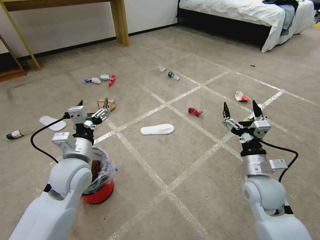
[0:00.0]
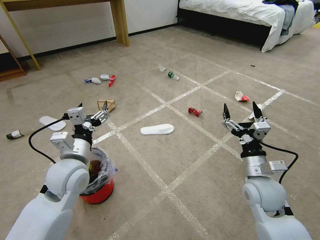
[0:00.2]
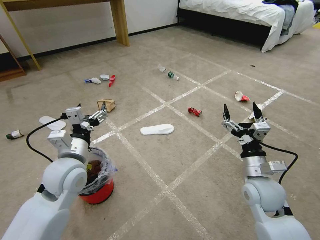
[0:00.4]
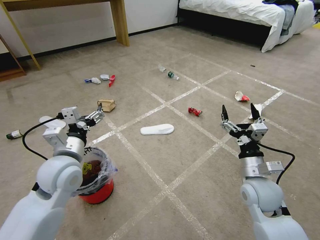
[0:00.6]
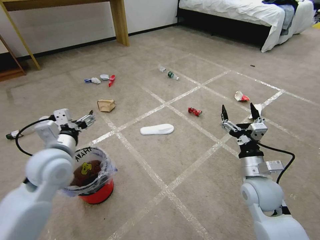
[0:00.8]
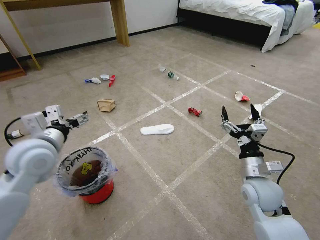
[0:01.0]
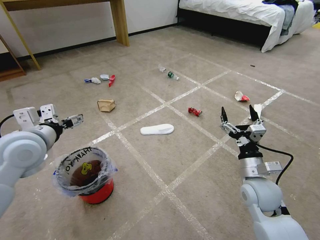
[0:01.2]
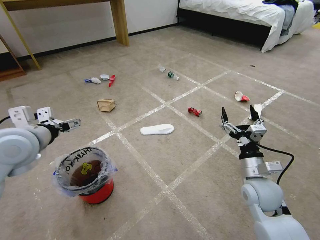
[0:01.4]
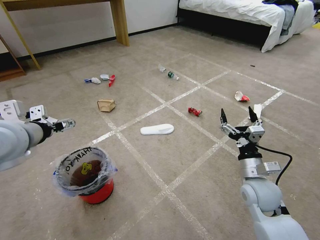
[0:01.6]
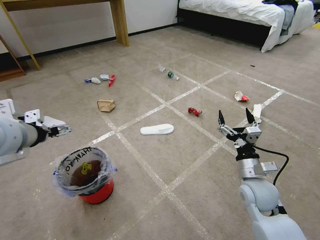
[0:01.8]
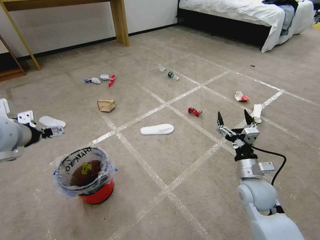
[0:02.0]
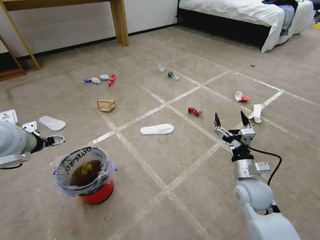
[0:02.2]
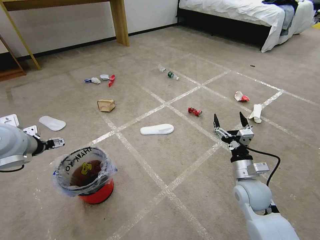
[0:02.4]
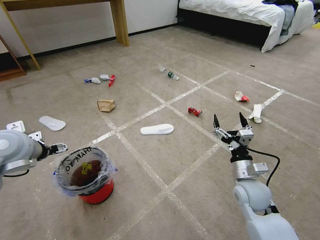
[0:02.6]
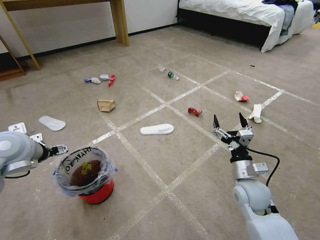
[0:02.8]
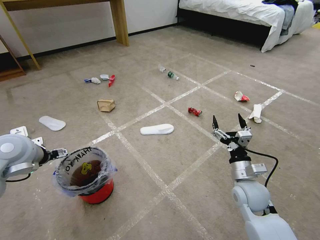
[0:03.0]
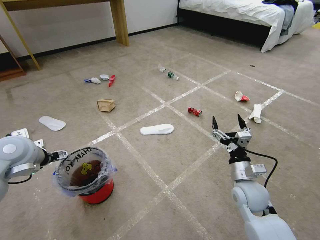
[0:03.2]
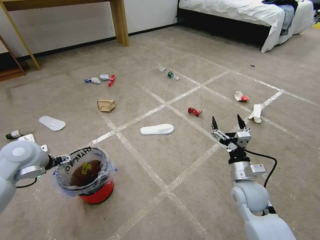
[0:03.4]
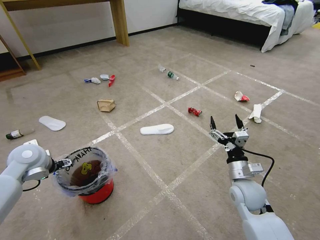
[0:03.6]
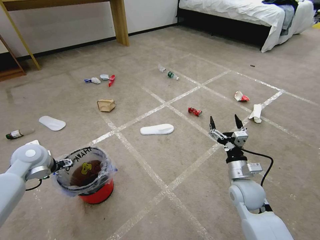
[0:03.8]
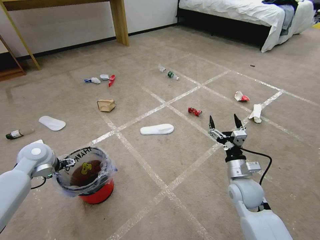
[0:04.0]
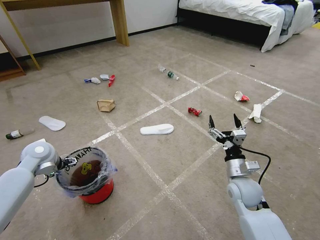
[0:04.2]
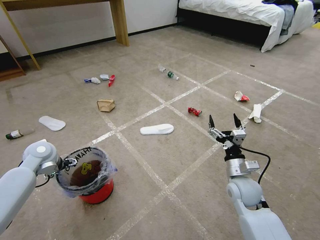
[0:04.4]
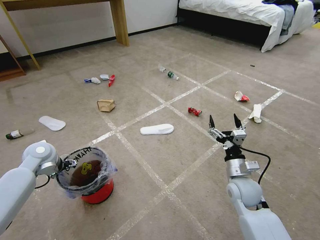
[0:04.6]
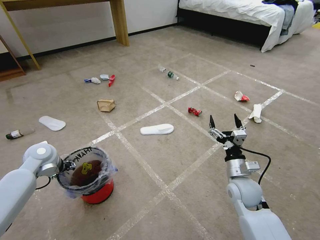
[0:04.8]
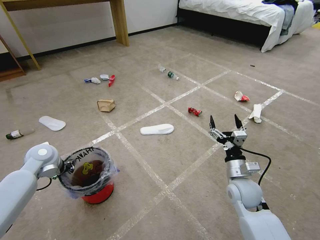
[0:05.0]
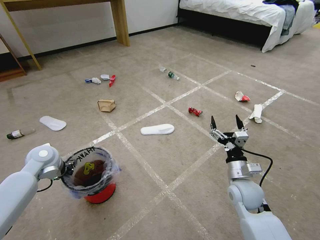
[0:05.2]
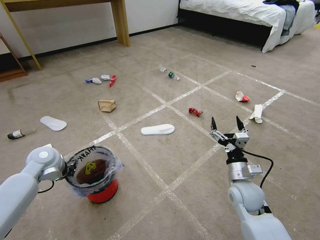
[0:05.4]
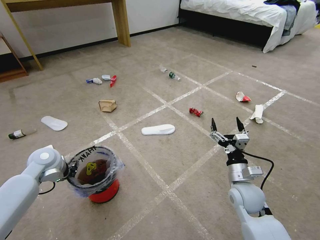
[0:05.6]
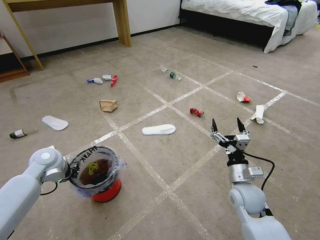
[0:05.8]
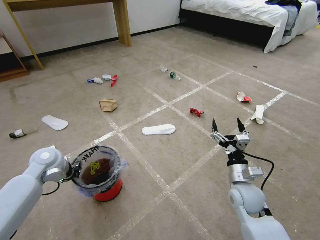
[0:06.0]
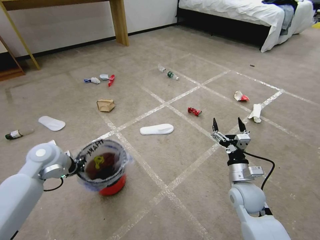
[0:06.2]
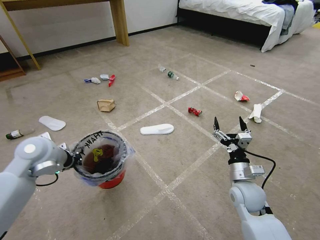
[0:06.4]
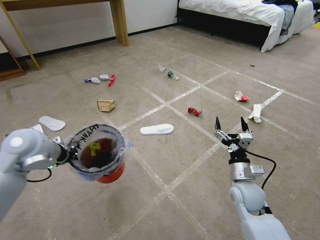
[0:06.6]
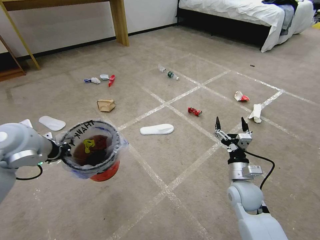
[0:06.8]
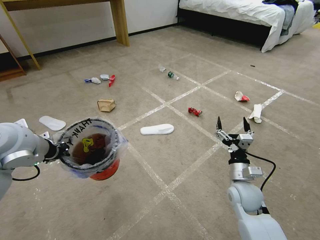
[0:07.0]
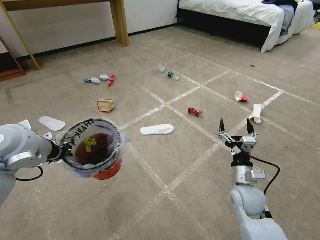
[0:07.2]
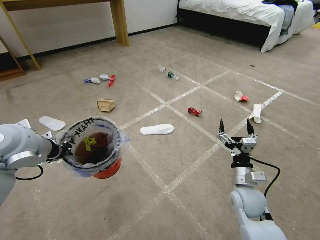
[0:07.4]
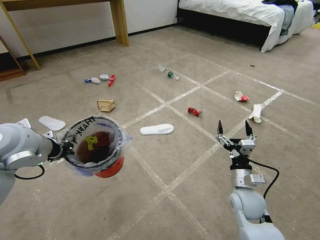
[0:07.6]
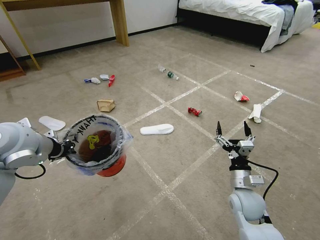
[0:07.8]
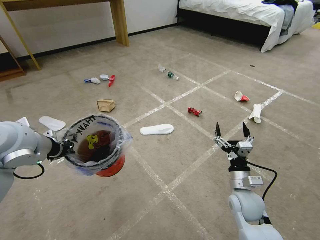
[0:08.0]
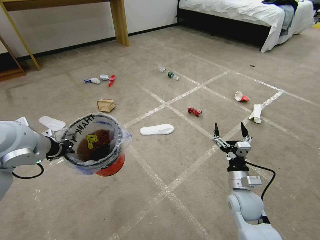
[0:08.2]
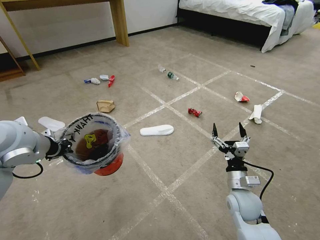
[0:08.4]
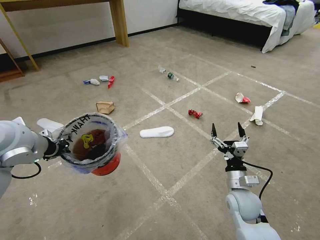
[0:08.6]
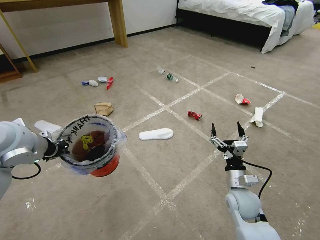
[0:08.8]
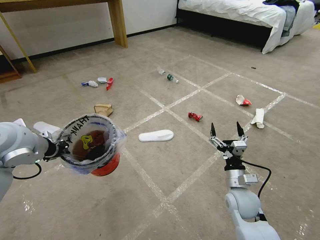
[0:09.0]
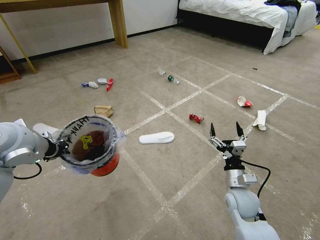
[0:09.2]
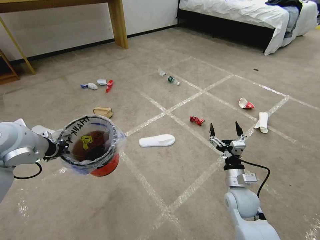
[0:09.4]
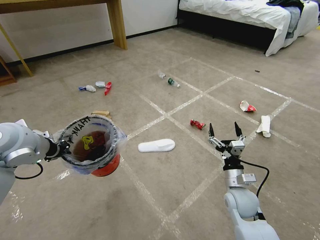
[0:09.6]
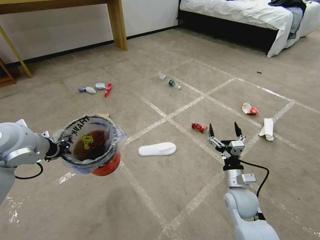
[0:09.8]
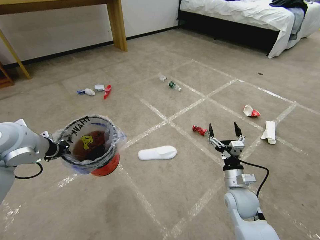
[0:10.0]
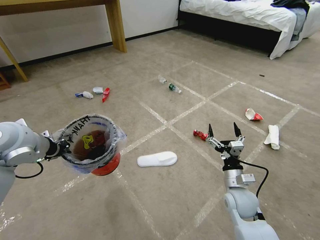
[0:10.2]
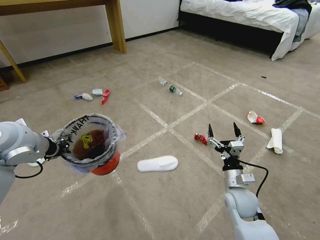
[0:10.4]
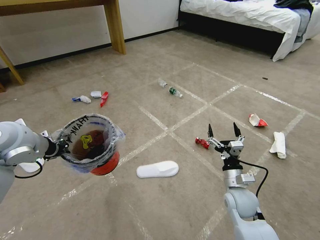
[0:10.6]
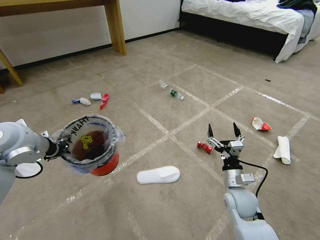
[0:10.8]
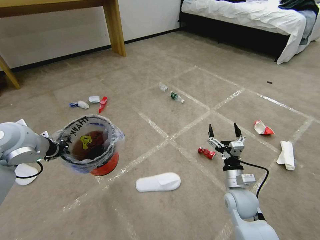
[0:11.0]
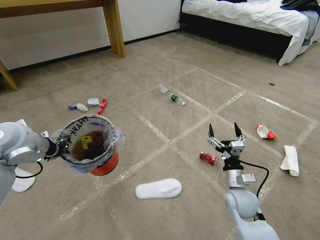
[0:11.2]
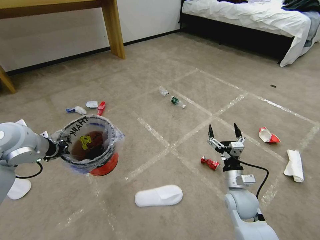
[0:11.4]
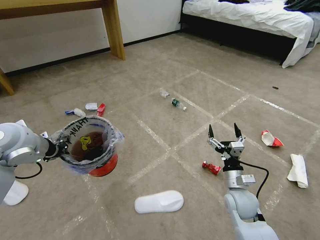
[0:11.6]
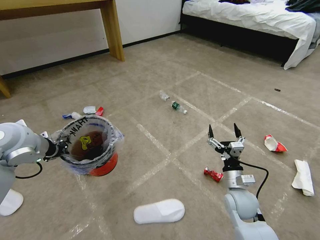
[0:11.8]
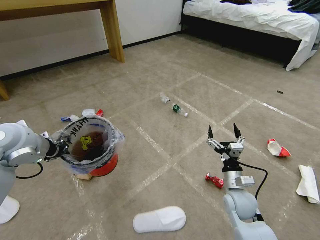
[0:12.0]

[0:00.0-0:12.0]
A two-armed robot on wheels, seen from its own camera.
Task of the whole recording: Pick up the trash bin and place the garbage on the floor into it.
0:01.6 to 0:03.0: The left gripper travels downward by roughly 10 cm.
0:03.0 to 0:04.4: The left gripper moves downward and forward, approximately 10 cm.
0:04.4 to 0:06.0: The left gripper closes.
0:06.0 to 0:07.6: The left gripper heads upward, covering approximately 15 cm.
0:07.6 to 0:09.0: The grippers make only small movements.
0:09.0 to 0:10.4: Neither gripper changes place.

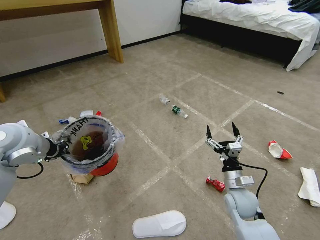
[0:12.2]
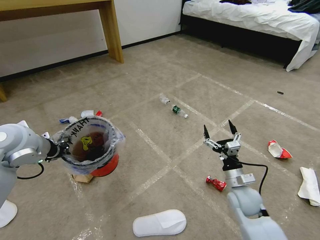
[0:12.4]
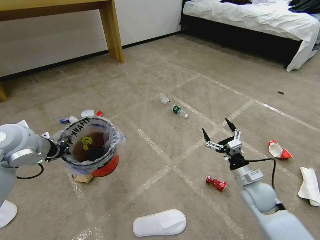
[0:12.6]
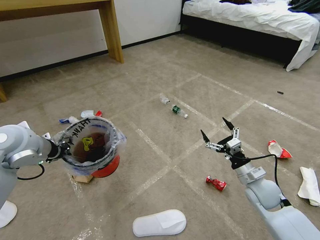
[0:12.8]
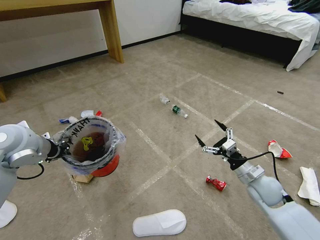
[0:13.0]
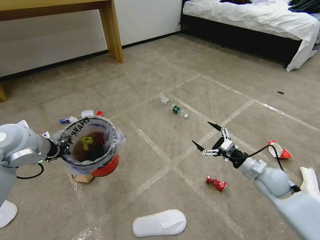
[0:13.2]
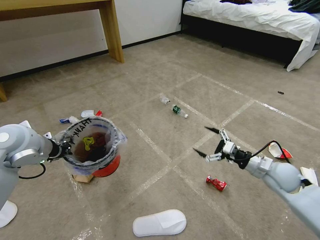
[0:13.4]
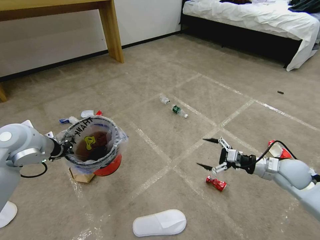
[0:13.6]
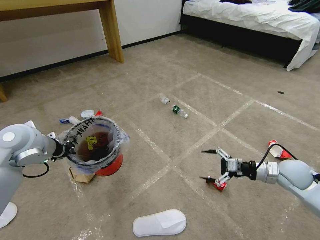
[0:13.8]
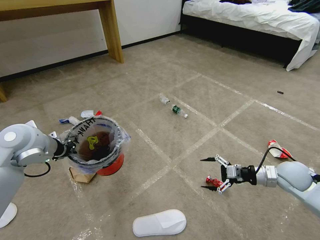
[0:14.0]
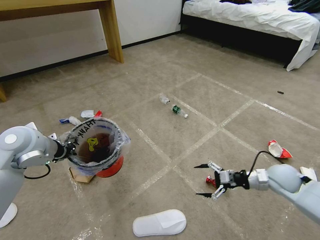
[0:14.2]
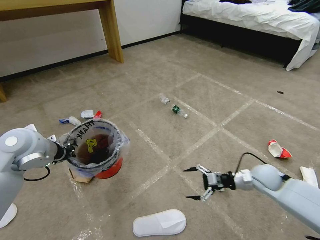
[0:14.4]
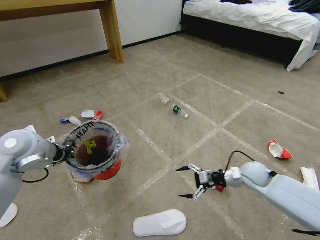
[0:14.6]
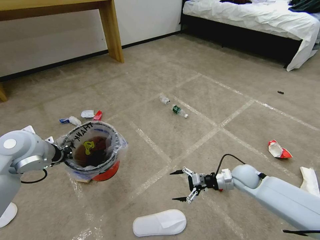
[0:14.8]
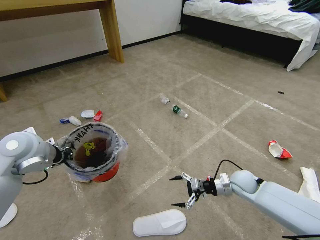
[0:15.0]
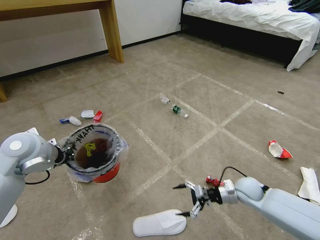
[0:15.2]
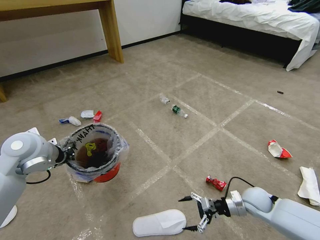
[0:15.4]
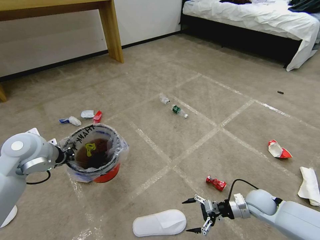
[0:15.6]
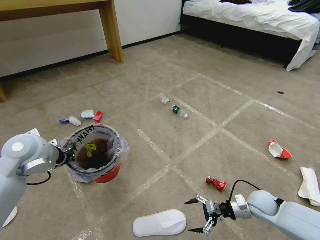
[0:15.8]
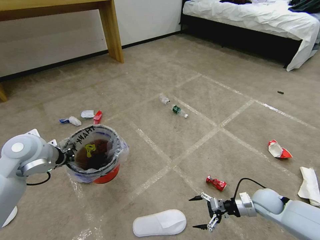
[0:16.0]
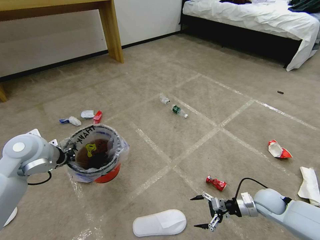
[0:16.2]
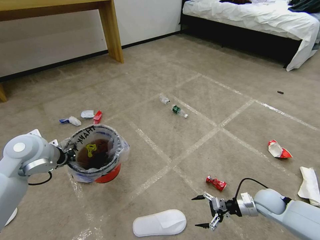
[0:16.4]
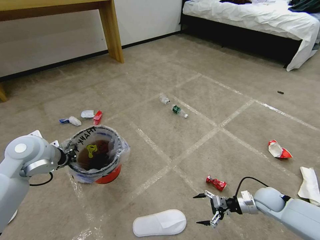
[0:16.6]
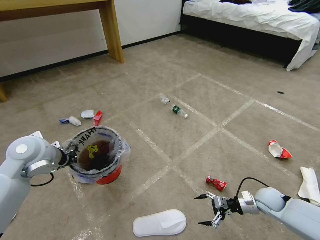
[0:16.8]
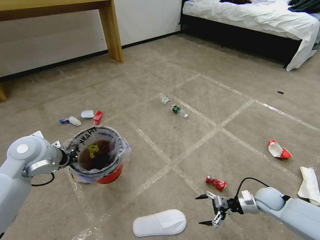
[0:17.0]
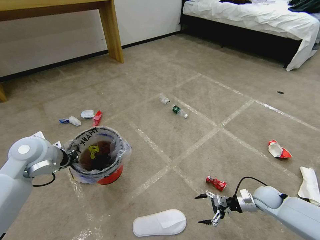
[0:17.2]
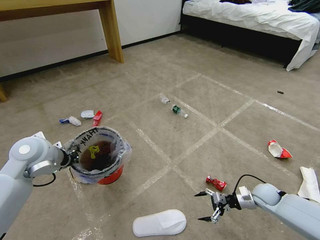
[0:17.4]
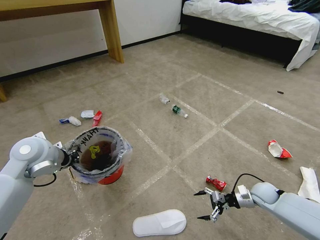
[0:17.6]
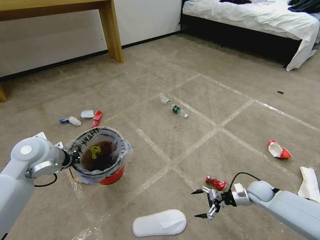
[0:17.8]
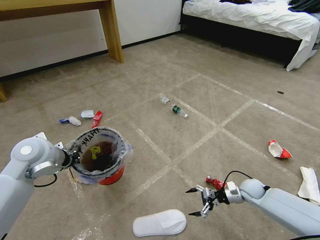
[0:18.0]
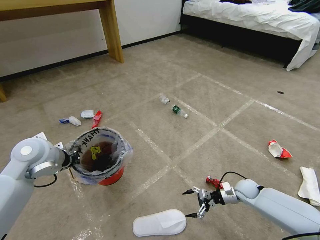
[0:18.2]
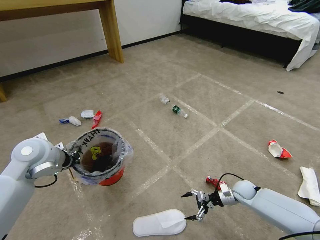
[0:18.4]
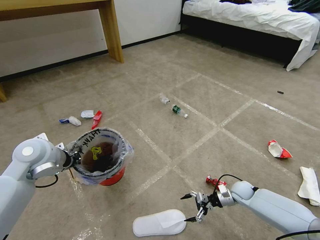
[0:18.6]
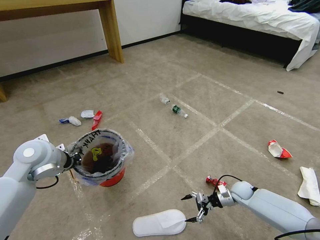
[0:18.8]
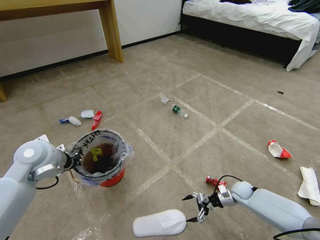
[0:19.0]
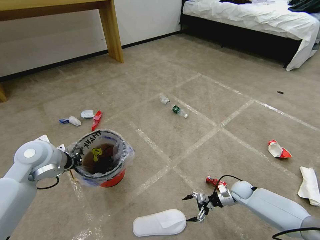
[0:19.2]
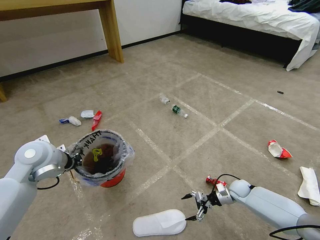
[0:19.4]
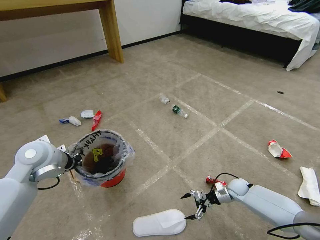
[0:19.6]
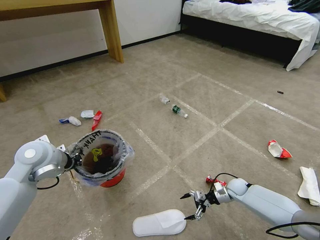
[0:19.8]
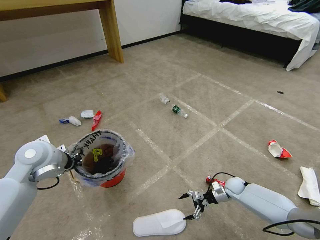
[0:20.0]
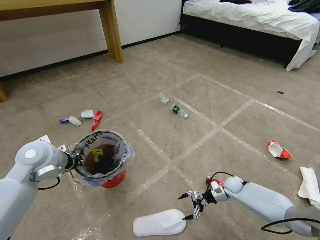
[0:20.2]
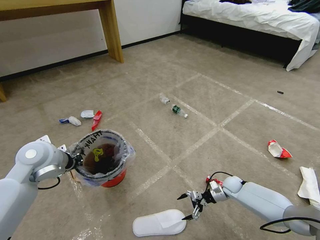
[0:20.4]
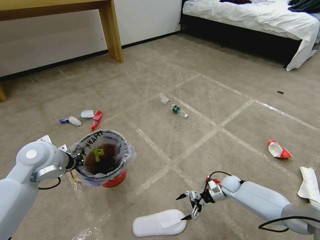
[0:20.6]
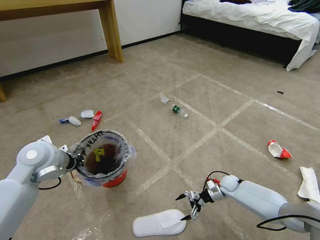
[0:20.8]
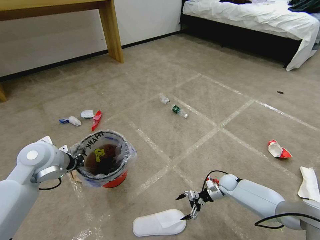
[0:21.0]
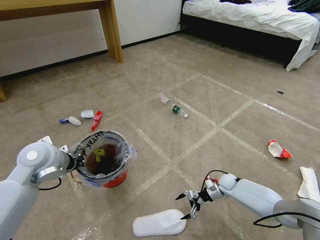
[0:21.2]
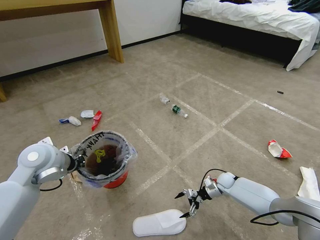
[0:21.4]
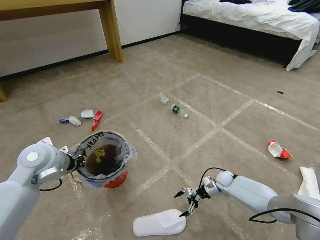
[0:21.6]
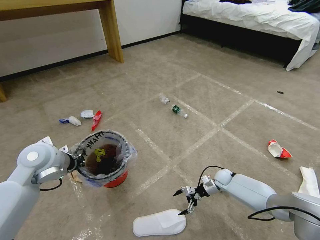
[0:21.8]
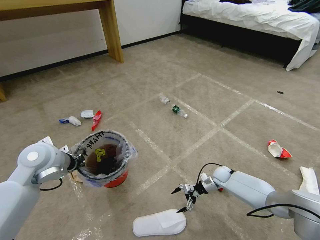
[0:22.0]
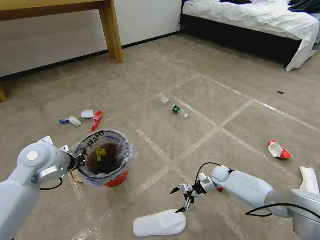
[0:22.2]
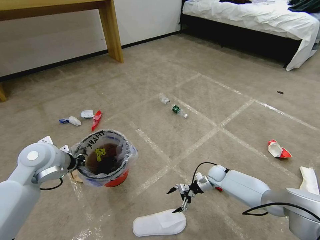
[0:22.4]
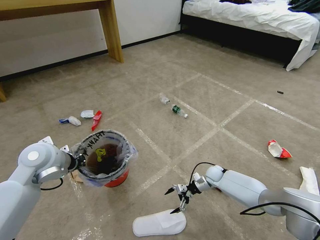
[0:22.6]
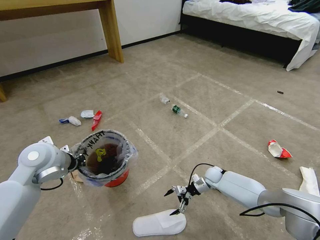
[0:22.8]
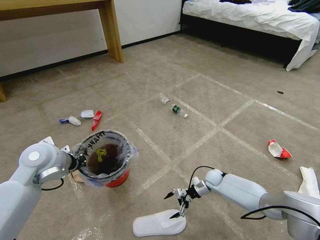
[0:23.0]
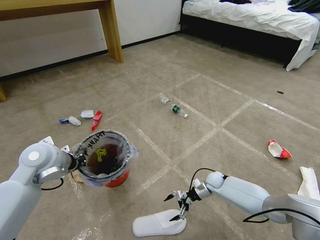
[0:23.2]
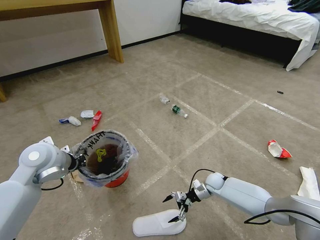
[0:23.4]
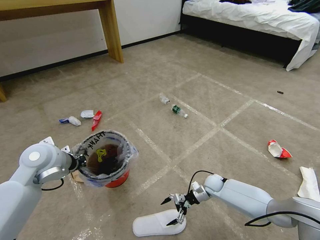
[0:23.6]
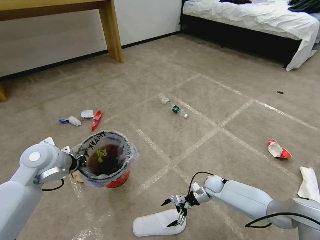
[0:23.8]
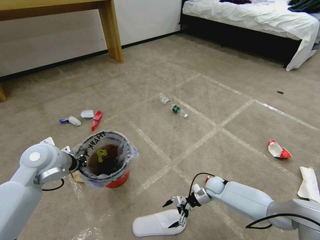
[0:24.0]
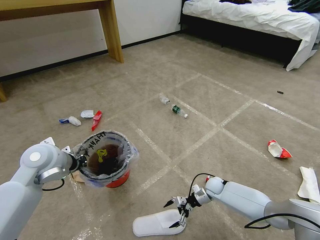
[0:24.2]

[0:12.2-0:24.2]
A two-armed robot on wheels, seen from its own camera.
Task of the whole recording: Pick up the trash bin and place the garbage on the floor into it.
0:12.2 to 0:13.8: The right gripper heads to the right and upward, covering approximately 20 cm.
0:13.8 to 0:15.2: The right gripper goes about 15 cm downward and to the left.
0:15.2 to 0:16.6: The right gripper shifts roughly 10 cm to the right.
0:16.6 to 0:18.2: The right gripper goes approximately 10 cm forward and downward.
0:18.2 to 0:19.8: The right gripper moves about 5 cm.
0:19.8 to 0:21.2: The grippers move only a little.
0:21.2 to 0:22.6: The right gripper moves to the left, some 5 cm.
0:22.6 to 0:24.2: The right gripper is displaced backward by approximately 5 cm.
